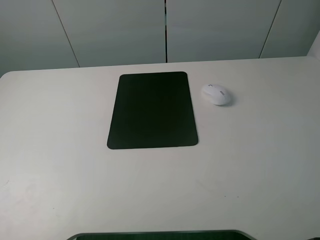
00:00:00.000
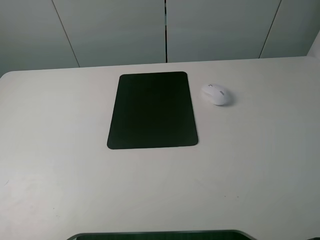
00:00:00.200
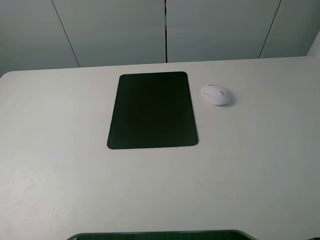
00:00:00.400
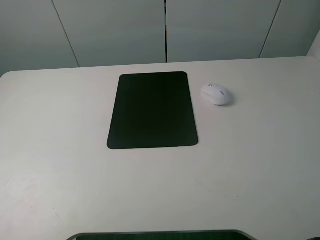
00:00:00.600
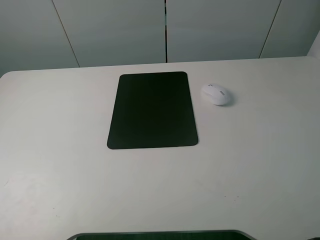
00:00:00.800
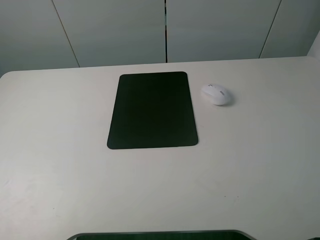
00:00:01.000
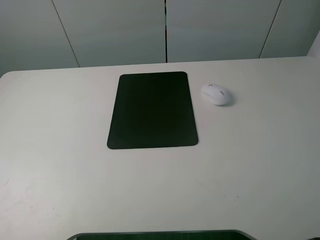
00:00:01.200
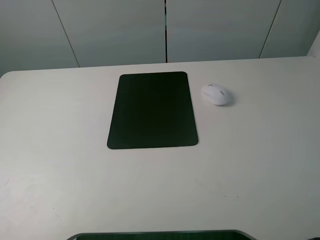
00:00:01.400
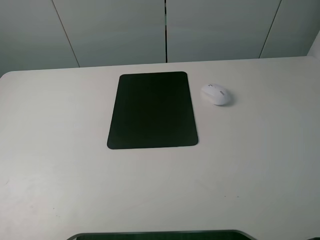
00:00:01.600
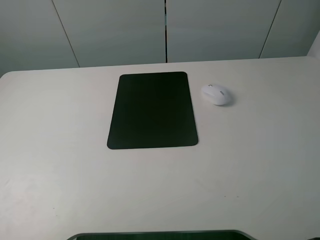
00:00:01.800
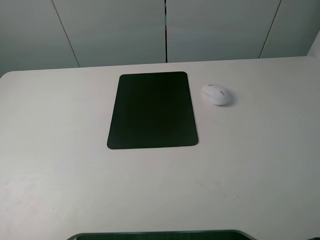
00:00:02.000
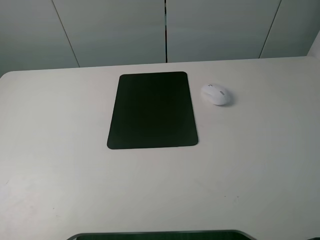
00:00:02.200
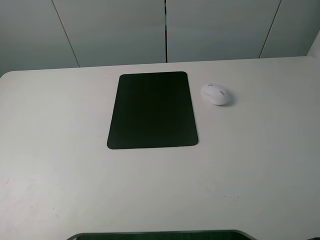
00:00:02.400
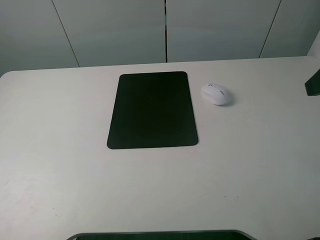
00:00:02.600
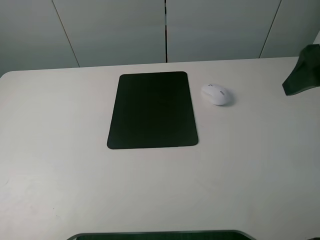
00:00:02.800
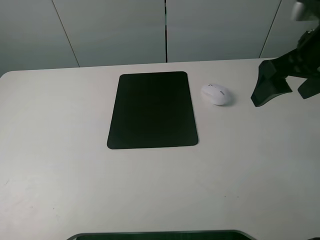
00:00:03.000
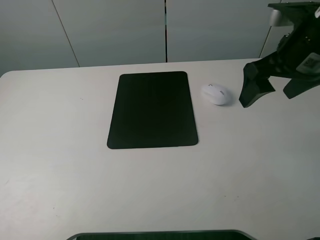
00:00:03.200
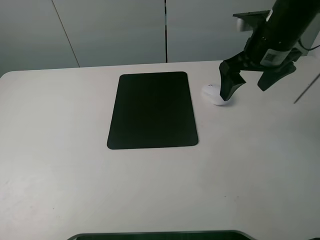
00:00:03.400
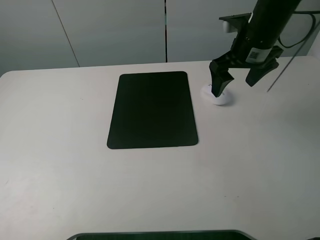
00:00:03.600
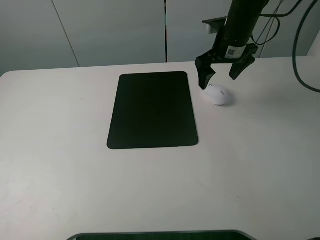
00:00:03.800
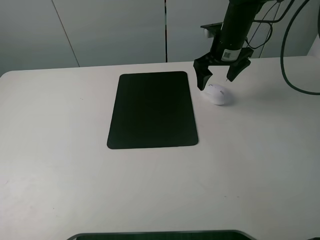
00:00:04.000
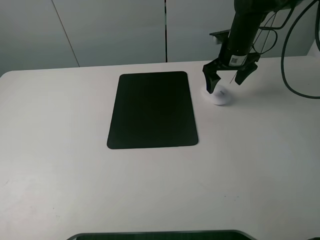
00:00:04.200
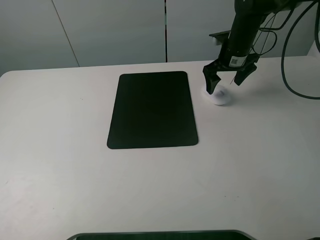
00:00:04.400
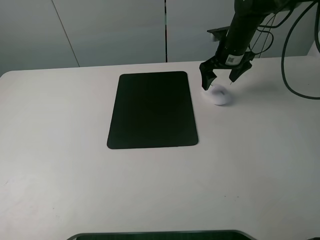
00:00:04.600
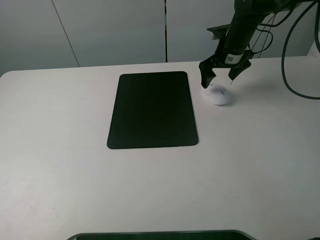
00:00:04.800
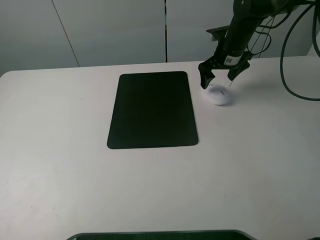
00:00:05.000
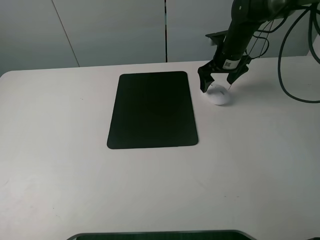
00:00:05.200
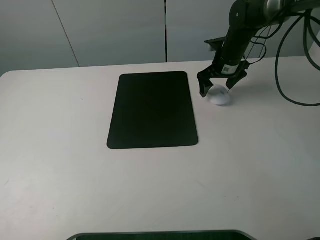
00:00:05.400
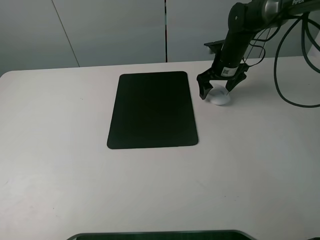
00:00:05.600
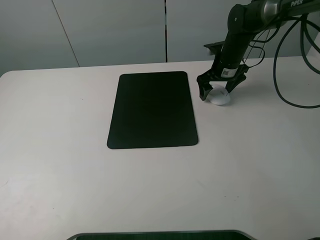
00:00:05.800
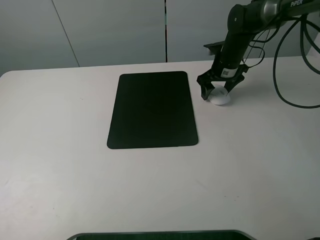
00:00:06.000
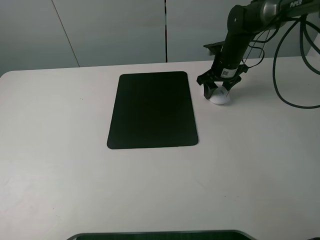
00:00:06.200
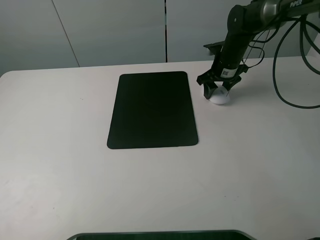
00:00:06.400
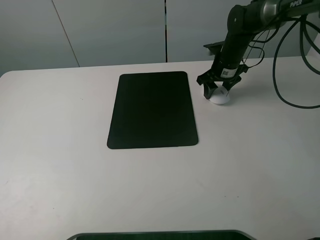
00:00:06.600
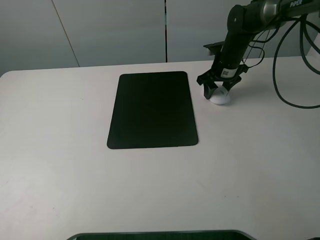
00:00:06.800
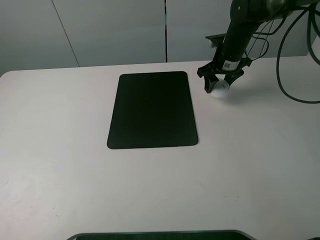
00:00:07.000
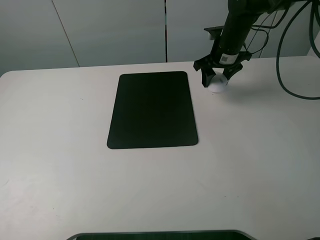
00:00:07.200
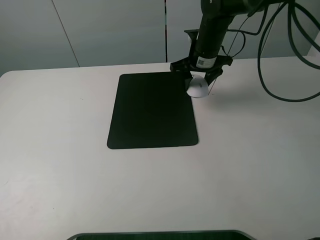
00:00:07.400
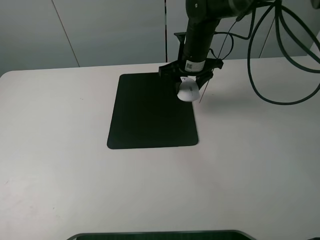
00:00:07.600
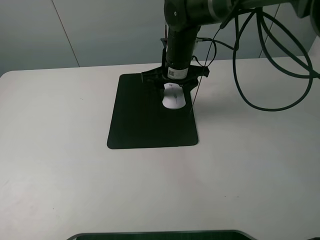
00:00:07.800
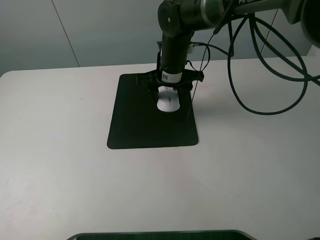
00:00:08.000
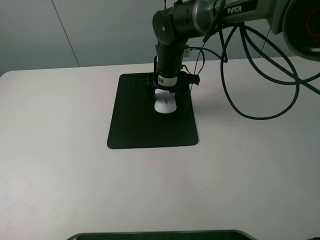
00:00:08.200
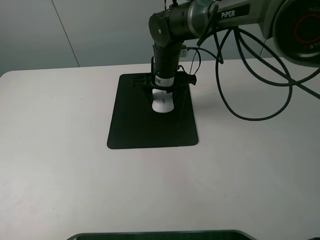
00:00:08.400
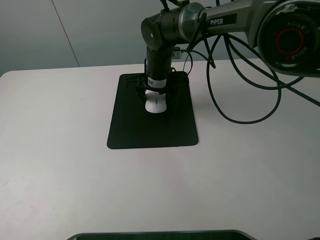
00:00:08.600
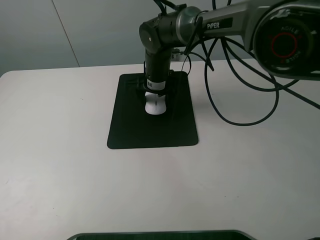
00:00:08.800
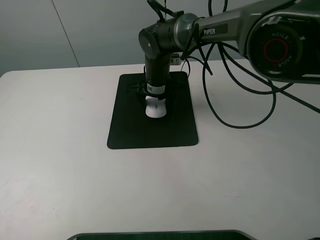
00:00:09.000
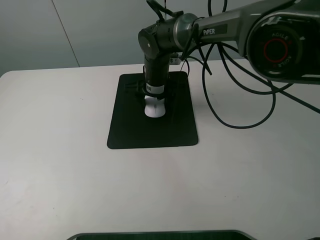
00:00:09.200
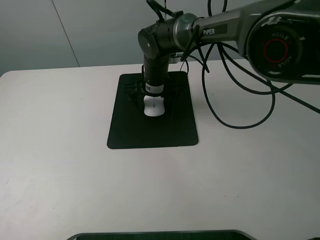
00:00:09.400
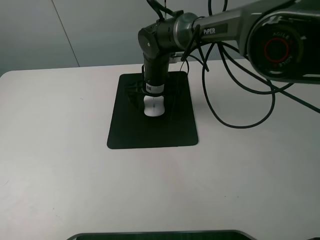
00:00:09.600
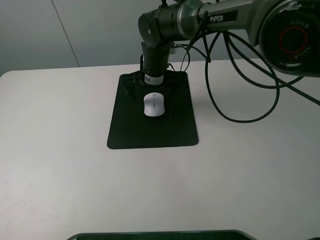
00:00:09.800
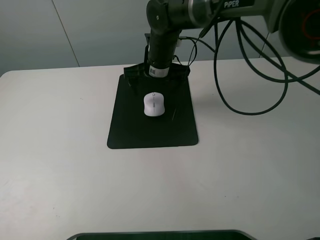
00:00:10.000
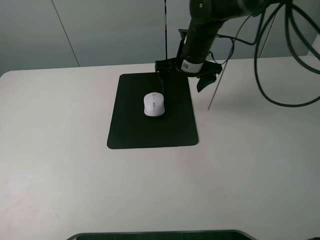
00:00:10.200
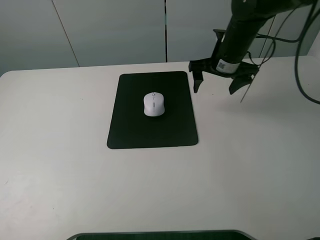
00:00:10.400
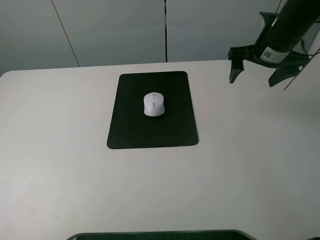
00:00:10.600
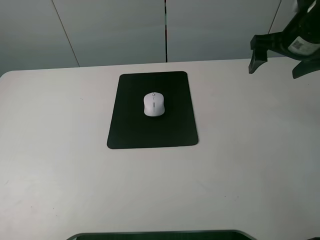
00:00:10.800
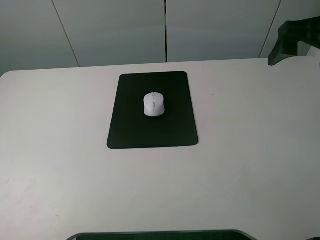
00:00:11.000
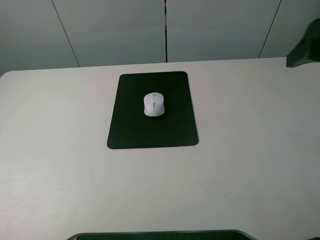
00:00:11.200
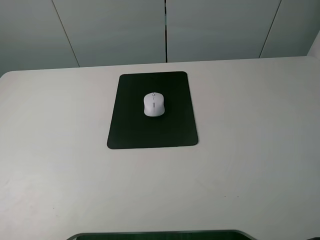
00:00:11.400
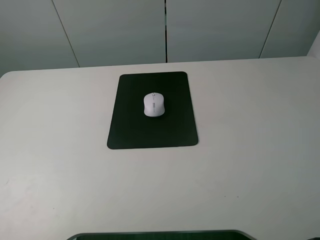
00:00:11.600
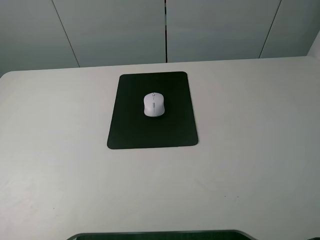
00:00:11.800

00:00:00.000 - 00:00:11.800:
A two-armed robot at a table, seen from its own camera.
Step, 00:00:00.000 - 00:00:06.800: Grasp the mouse with the right gripper.
Step, 00:00:07.000 - 00:00:09.200: Place the mouse on the mouse mat with the right gripper.
00:00:00.000 - 00:00:01.400: Both grippers stay put.
00:00:01.400 - 00:00:03.000: The right gripper heads forward, covering approximately 25 cm.
00:00:03.000 - 00:00:04.400: The right gripper shifts approximately 25 cm forward and downward.
00:00:04.400 - 00:00:06.000: The right gripper closes up.
00:00:06.000 - 00:00:07.400: The right gripper heads to the left and upward, covering roughly 10 cm.
00:00:07.400 - 00:00:08.800: The right gripper shifts approximately 10 cm to the left.
00:00:08.800 - 00:00:10.400: The right gripper heads to the right, covering roughly 20 cm, and opens up.
00:00:10.400 - 00:00:11.800: The right gripper shifts roughly 35 cm backward.

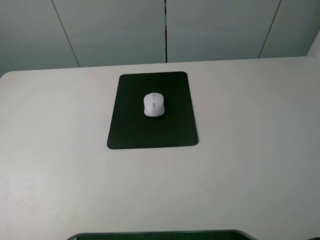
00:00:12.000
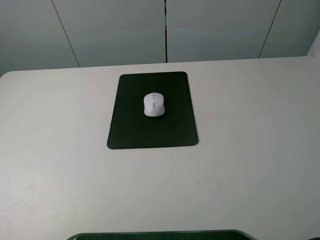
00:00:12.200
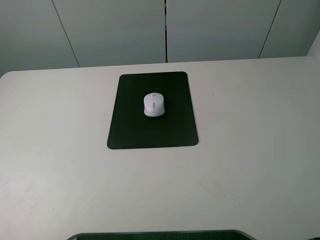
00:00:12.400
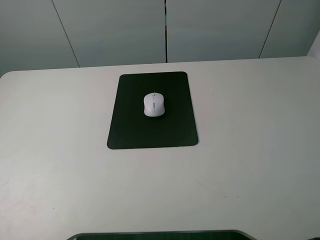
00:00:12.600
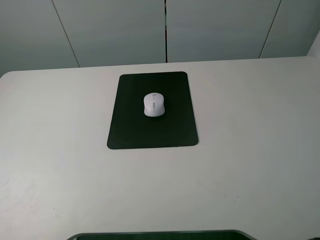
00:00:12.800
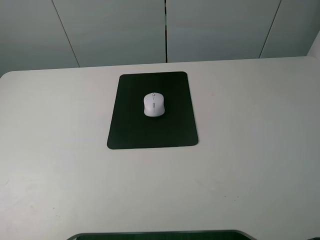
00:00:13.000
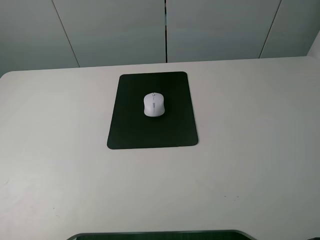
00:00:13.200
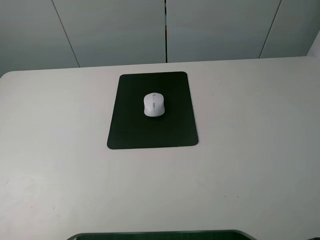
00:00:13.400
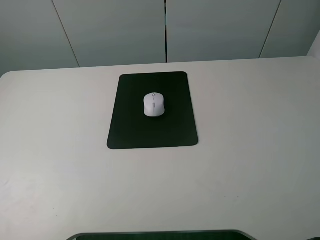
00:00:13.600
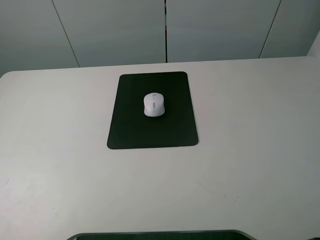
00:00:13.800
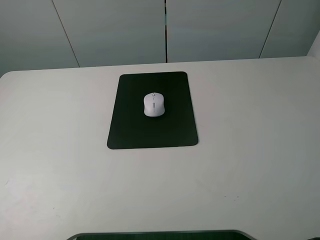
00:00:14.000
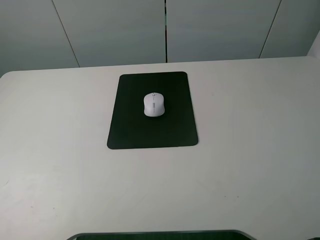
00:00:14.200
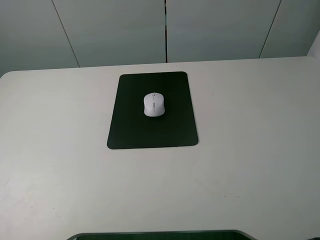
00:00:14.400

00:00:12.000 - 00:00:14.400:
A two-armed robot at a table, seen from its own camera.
00:00:13.200 - 00:00:14.400: Neither gripper changes place.
